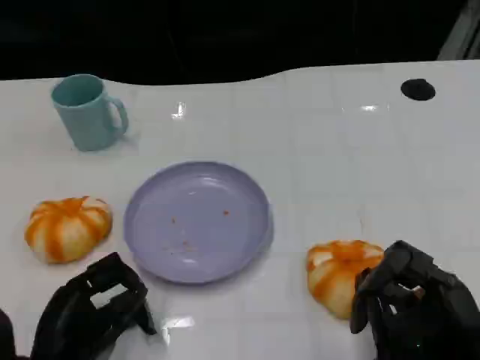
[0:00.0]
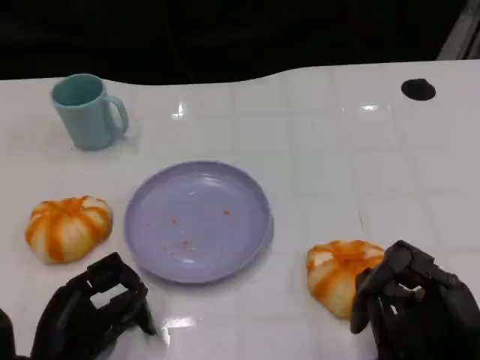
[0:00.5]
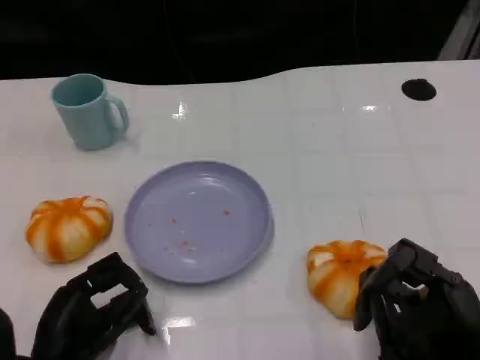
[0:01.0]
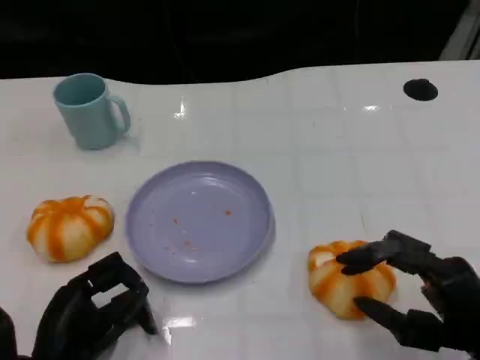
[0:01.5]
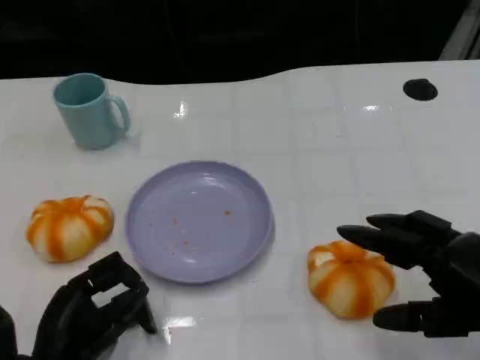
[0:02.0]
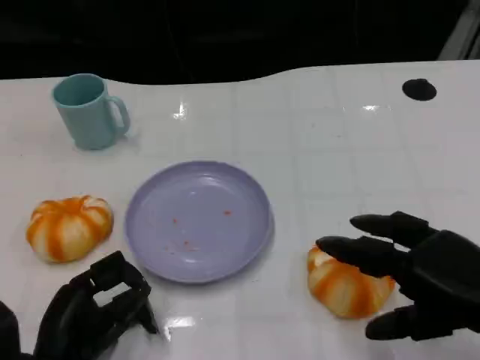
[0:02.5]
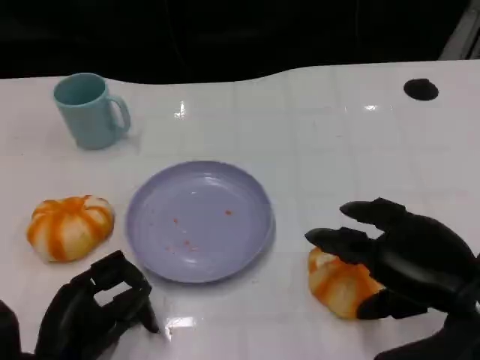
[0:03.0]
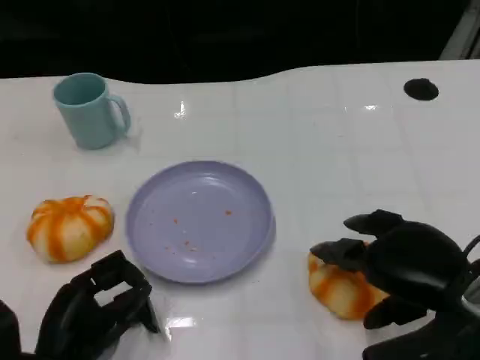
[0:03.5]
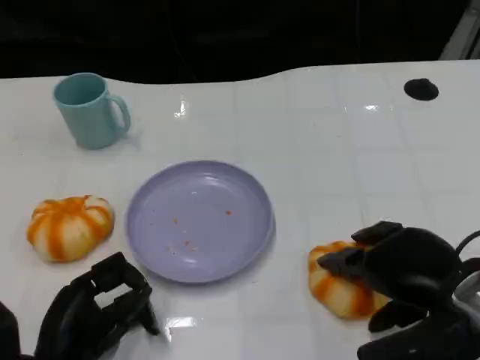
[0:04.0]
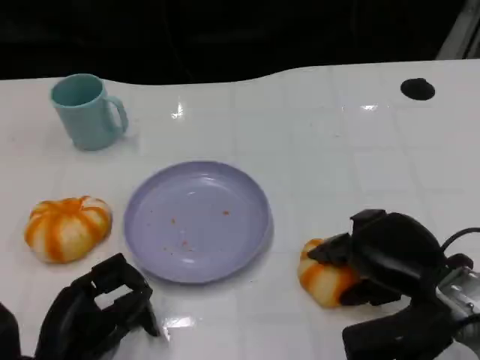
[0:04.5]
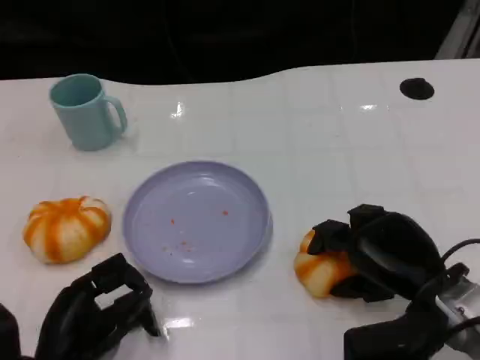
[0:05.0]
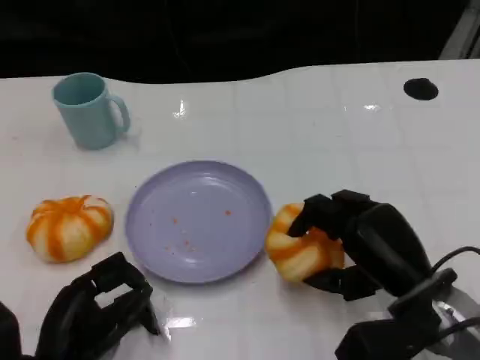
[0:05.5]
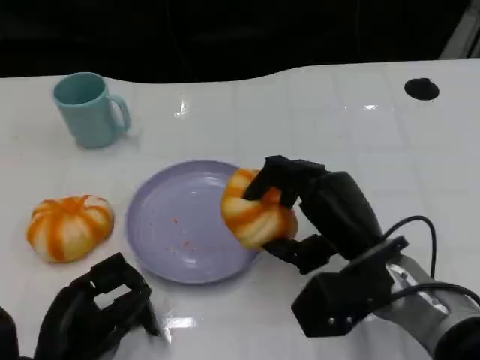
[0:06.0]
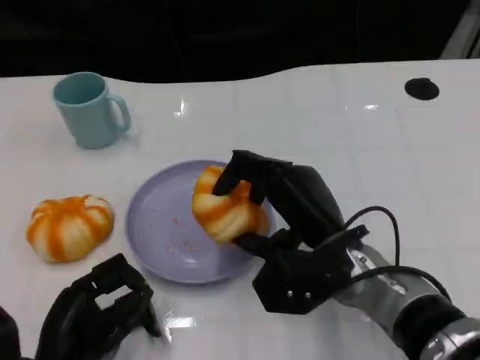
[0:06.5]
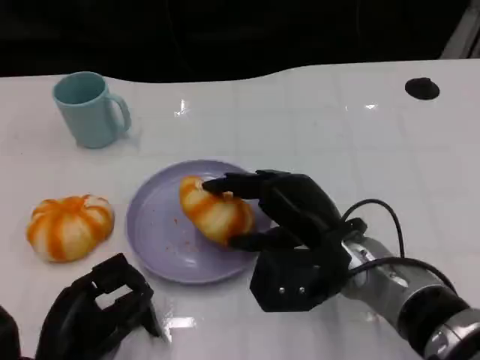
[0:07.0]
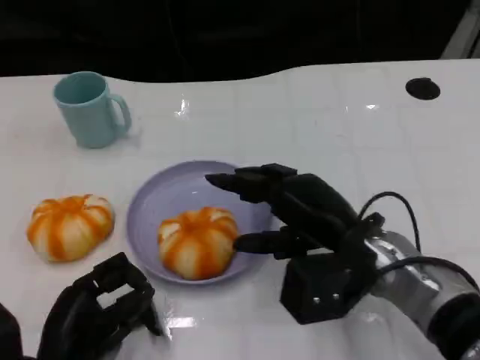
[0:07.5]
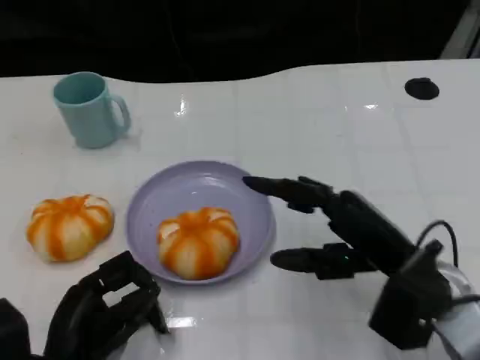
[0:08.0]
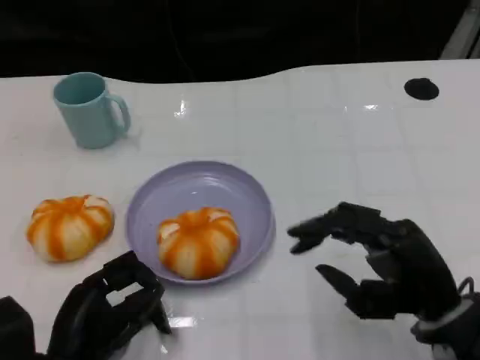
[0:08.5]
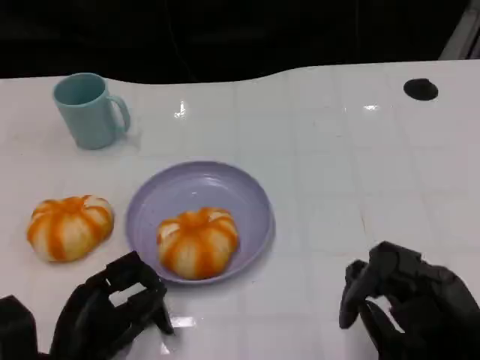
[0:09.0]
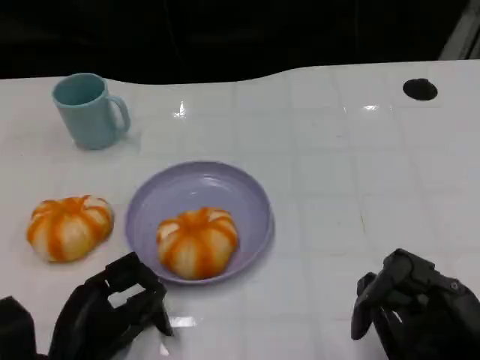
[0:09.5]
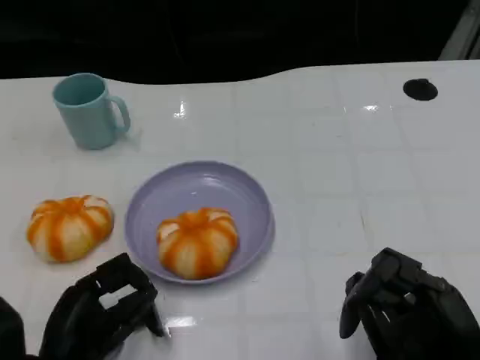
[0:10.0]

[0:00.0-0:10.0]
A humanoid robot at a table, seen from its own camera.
Task of the whole recording: Grasp the bread from the table and place it into the plate.
0:00.0 to 0:02.0: The right hand moves upward, roughly 5 cm.
0:02.0 to 0:04.0: The right hand goes roughly 5 cm to the left.
0:04.0 to 0:06.0: The right hand goes roughly 10 cm to the left.
0:06.0 to 0:08.0: The right hand goes about 5 cm to the right.
0:08.0 to 0:10.0: The right hand heads backward, covering approximately 10 cm.

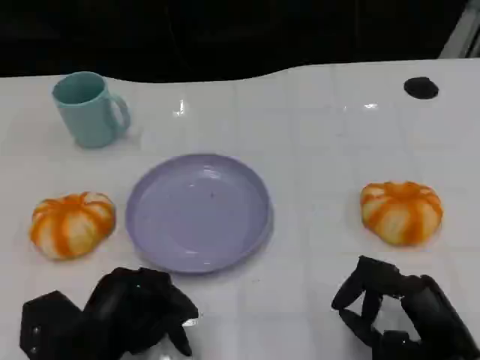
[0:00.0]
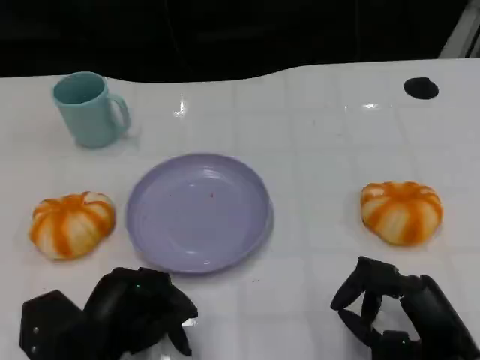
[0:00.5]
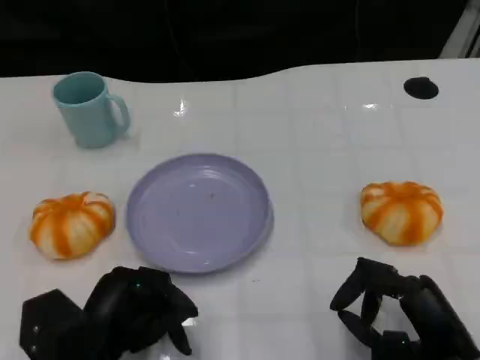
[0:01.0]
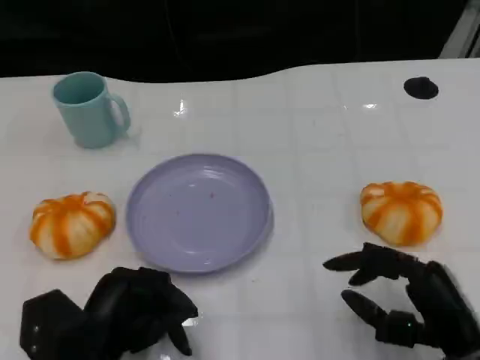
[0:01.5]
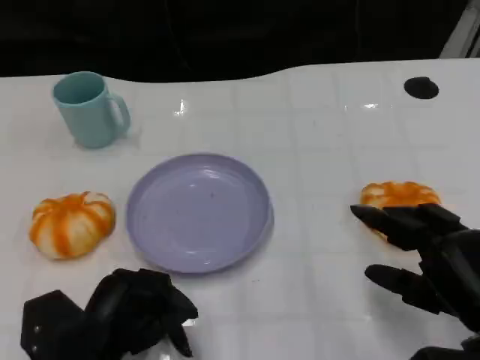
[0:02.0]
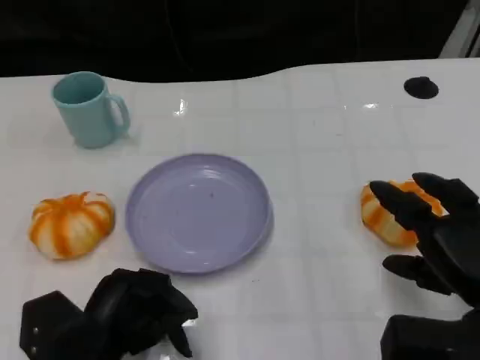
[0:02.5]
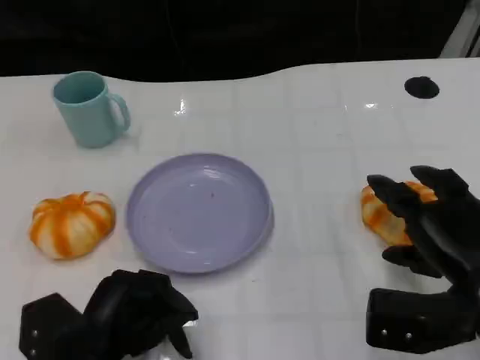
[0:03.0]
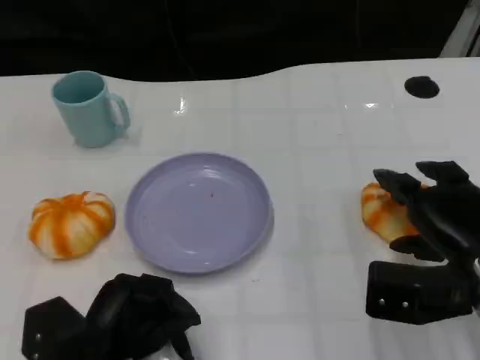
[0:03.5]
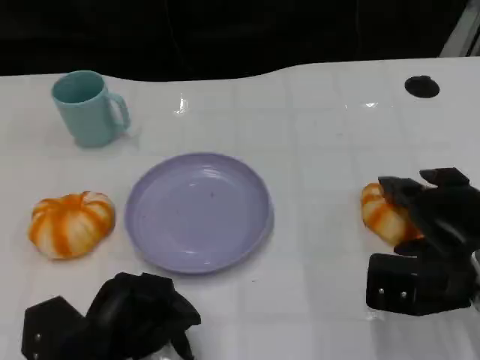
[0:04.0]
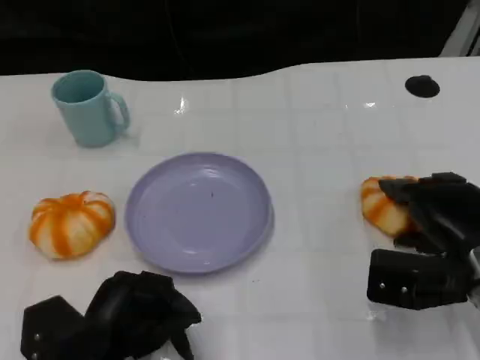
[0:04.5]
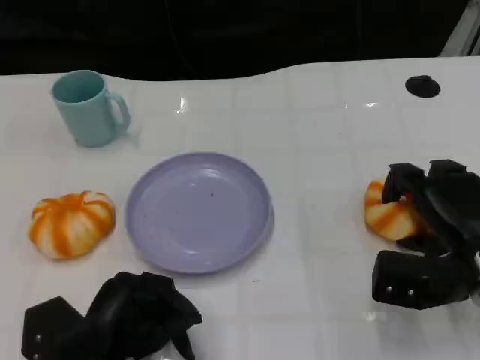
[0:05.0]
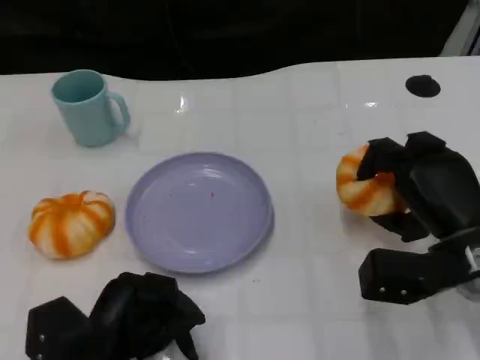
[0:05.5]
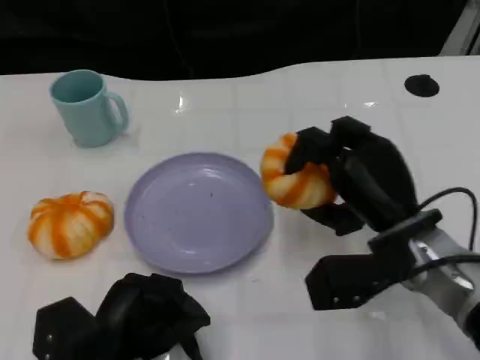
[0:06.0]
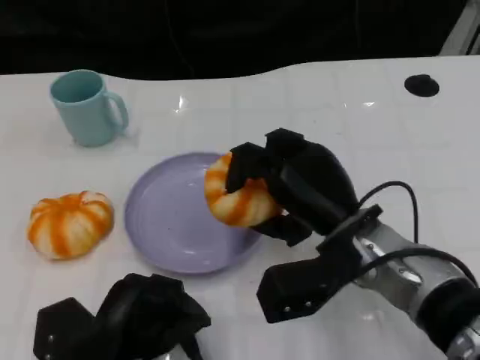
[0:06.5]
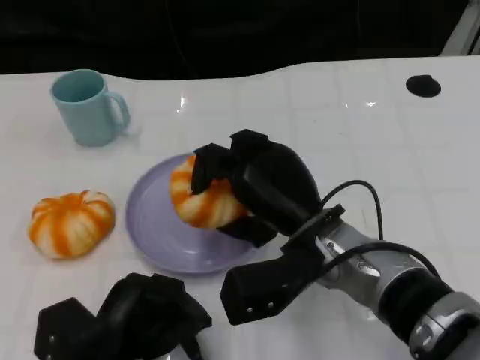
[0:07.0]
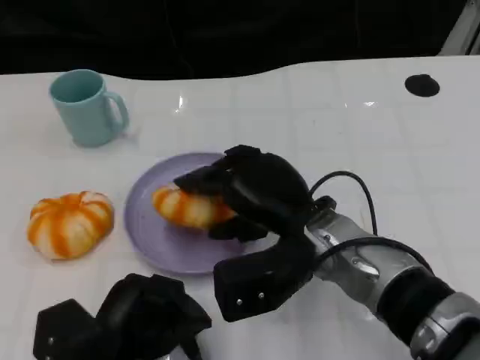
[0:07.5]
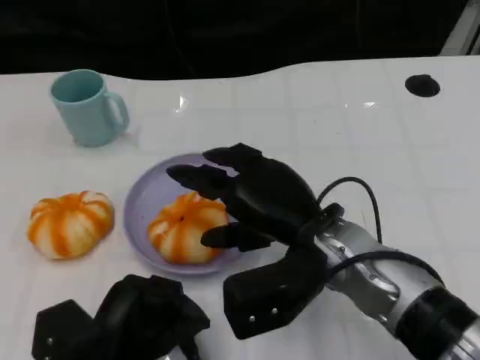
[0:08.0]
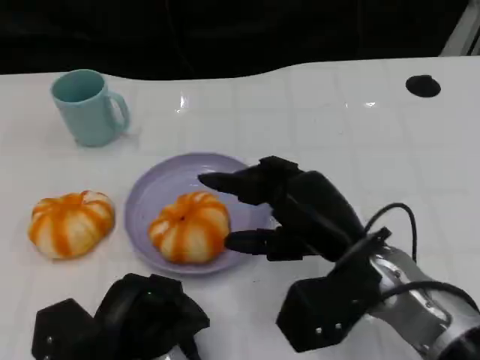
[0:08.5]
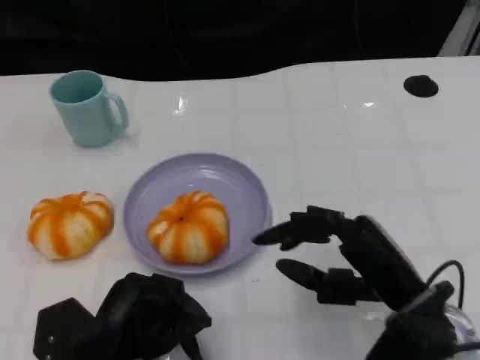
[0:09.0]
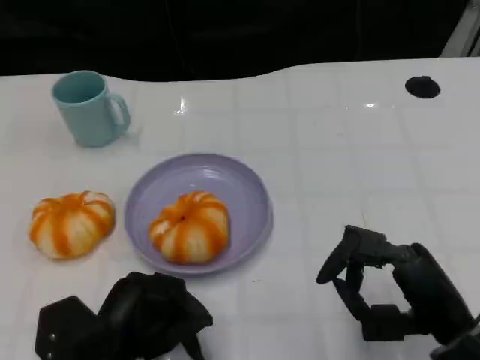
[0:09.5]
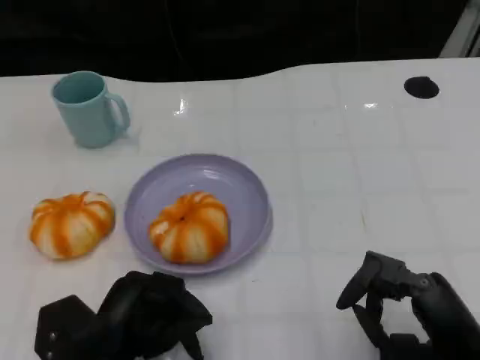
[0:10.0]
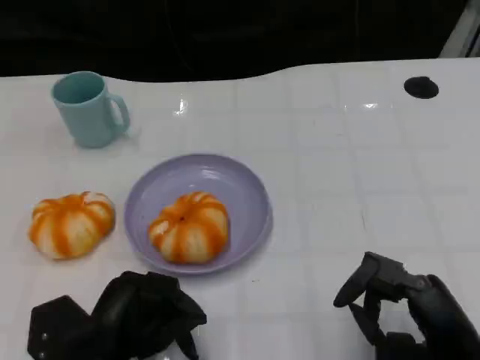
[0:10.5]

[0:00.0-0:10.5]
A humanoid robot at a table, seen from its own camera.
Task of the whole recording: Grasp the bread from the table and place it into the plate.
0:02.0 to 0:04.0: The right hand travels forward by roughly 10 cm.
0:04.0 to 0:06.5: The right hand moves to the left, approximately 15 cm.
0:06.5 to 0:08.5: The hands stay close to where they were, moving slightly.
0:08.5 to 0:10.5: The right hand shifts about 15 cm to the right, backward and downward.

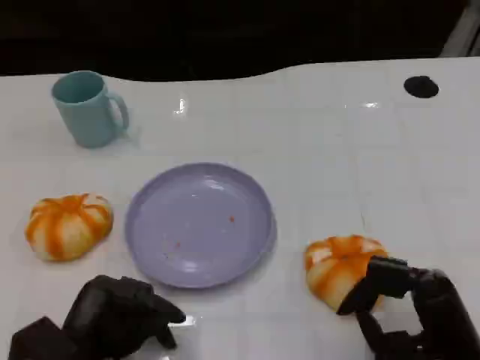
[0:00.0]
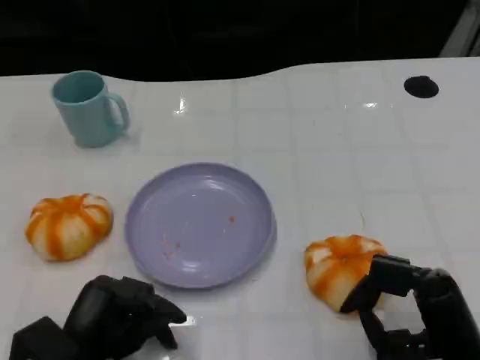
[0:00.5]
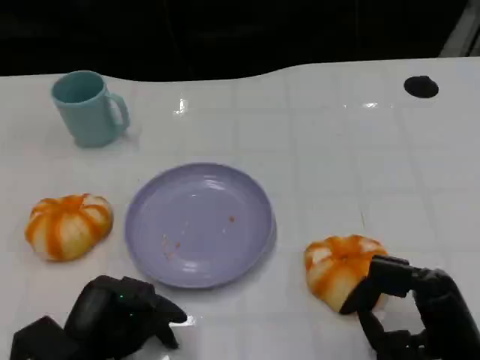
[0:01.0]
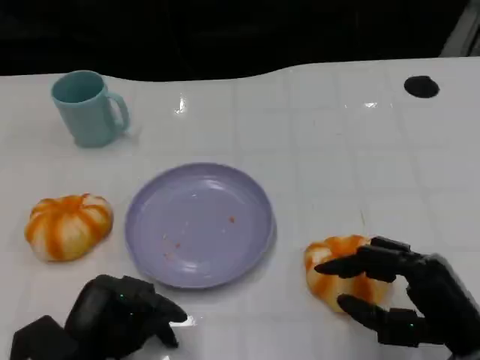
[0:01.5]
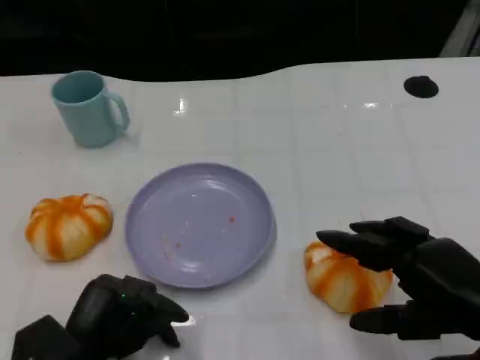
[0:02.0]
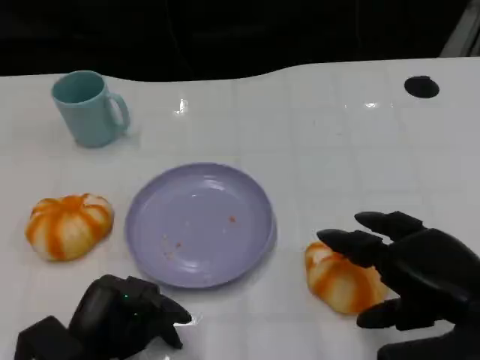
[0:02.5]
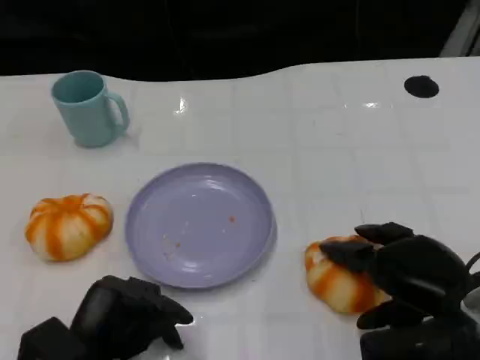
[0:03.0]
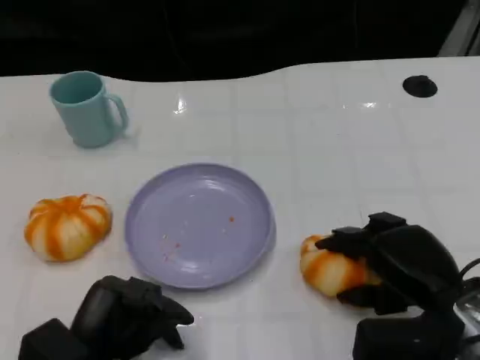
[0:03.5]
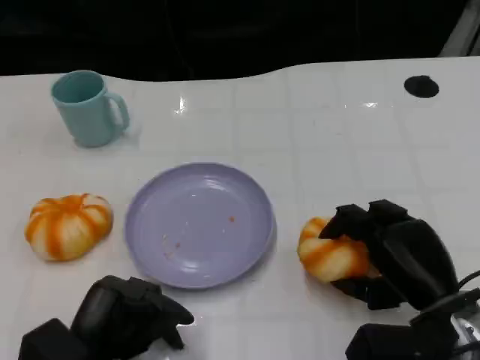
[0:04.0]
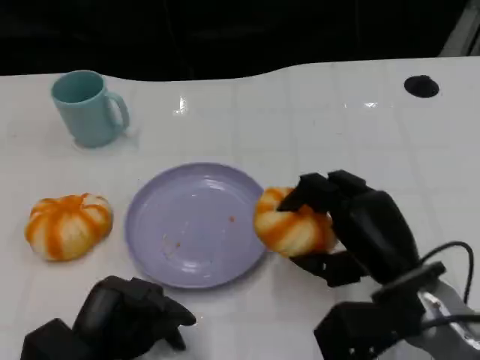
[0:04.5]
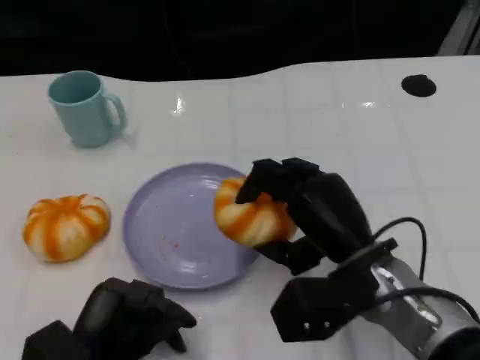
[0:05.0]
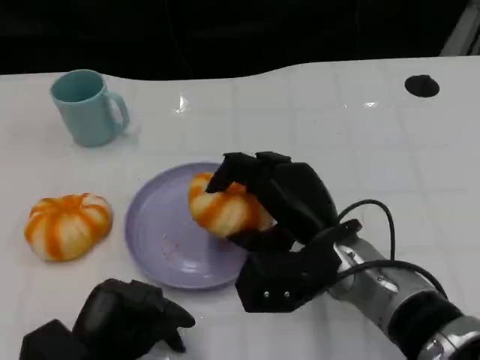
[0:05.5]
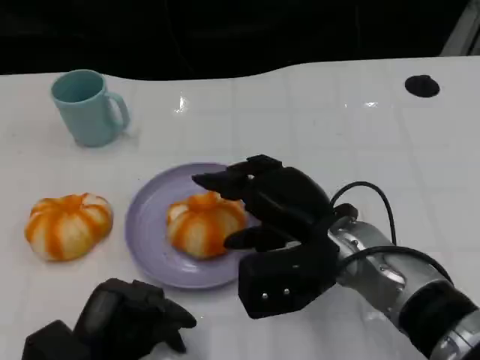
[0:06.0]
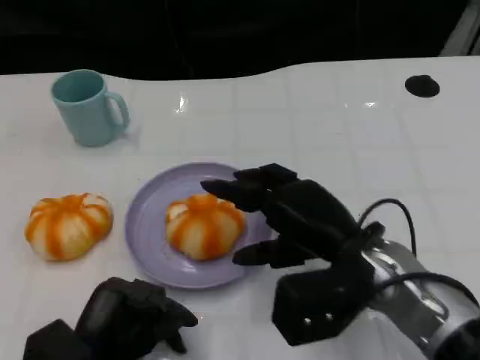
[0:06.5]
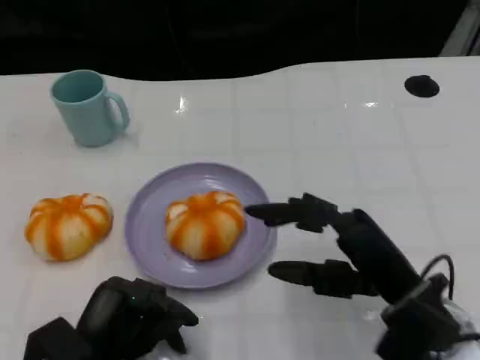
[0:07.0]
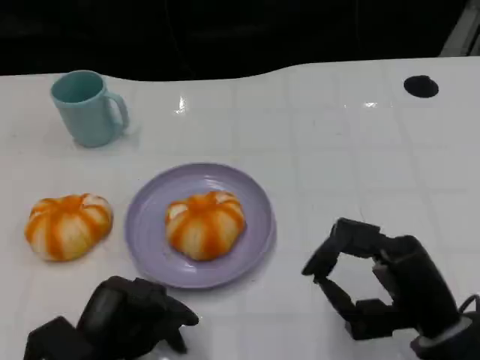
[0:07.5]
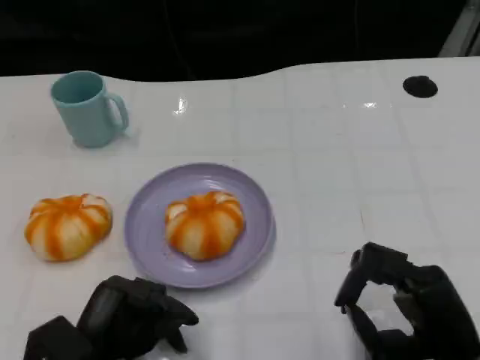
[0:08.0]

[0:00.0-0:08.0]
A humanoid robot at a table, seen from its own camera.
Task of the whole recording: Grasp the bread from the table and place it into the plate.
0:00.0 to 0:02.0: The right hand heads upward, covering roughly 10 cm.
0:02.0 to 0:04.0: The right hand shifts about 5 cm downward.
0:04.0 to 0:06.0: The right hand is displaced to the left, forward and upward by about 15 cm.
0:06.0 to 0:08.0: The right hand heads to the right and backward, covering roughly 15 cm.
